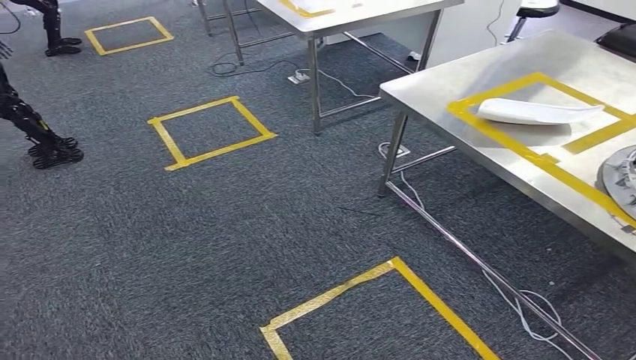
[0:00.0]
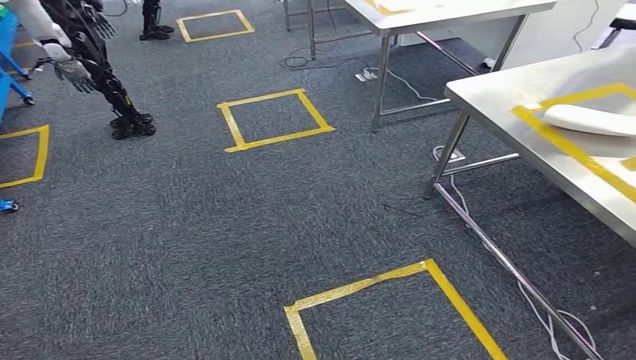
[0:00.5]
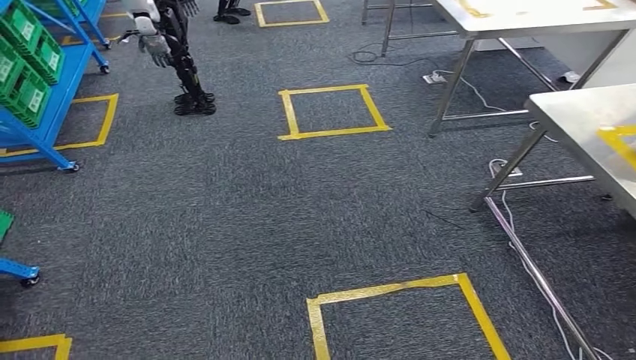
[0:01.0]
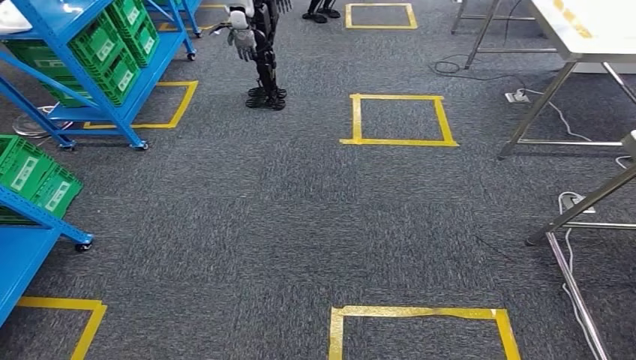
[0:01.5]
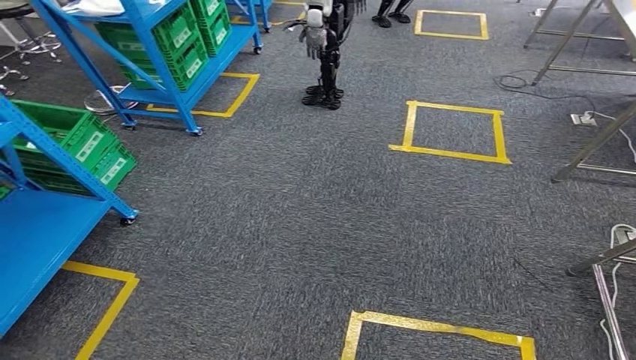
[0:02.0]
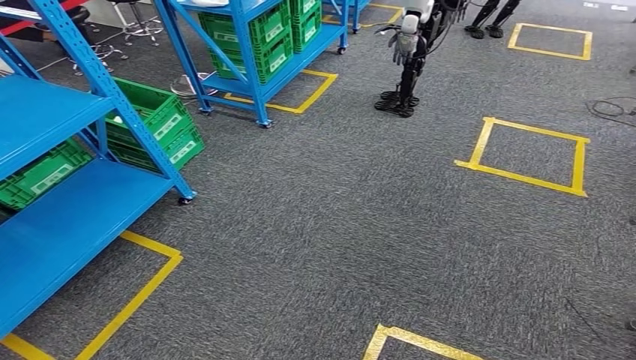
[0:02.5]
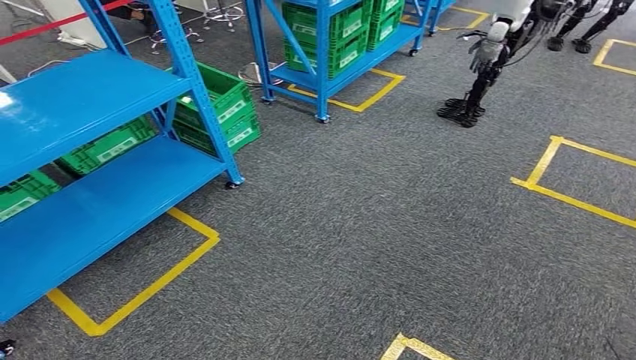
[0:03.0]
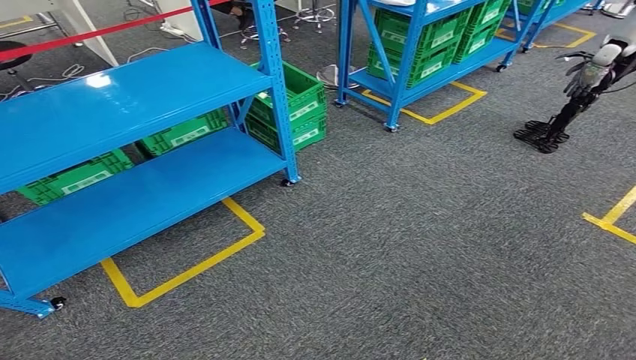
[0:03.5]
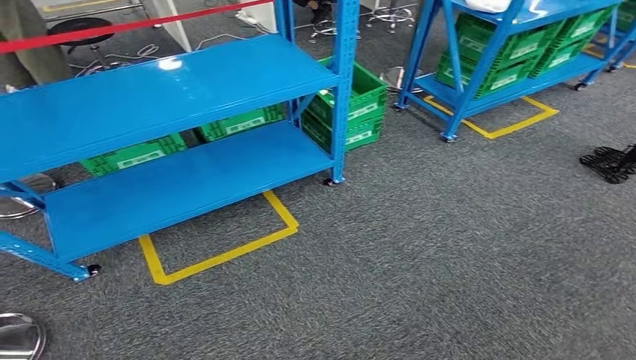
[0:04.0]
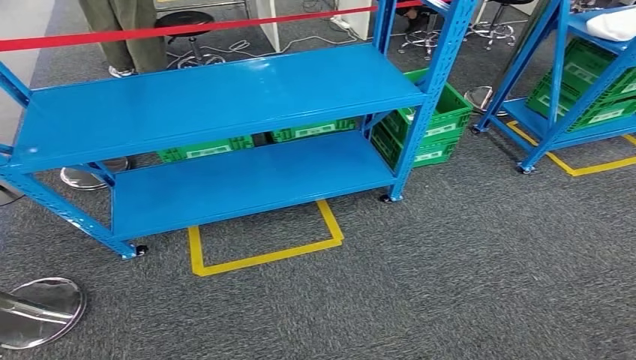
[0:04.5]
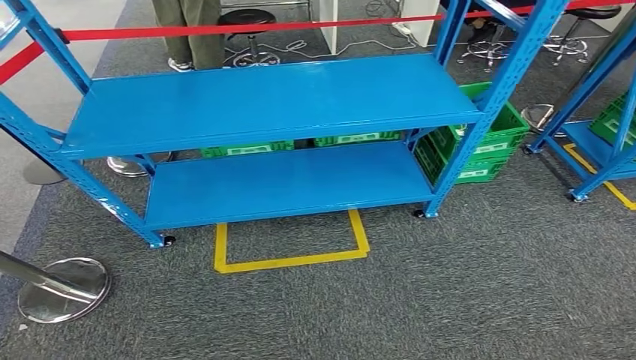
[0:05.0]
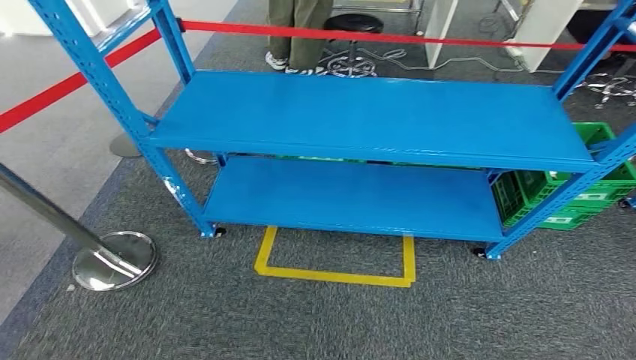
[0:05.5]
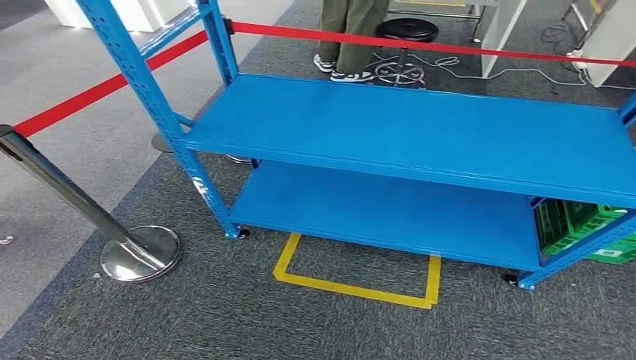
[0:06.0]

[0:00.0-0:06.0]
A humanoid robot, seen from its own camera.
Step, 0:00.0 to 0:06.0: Return to the initial position at the workbench.
